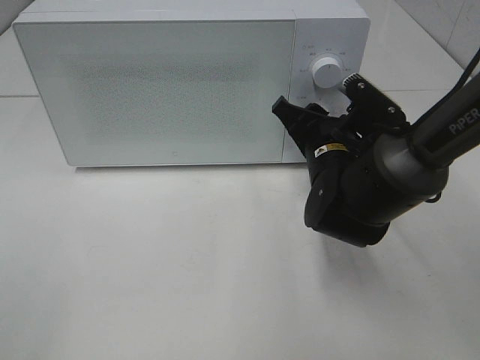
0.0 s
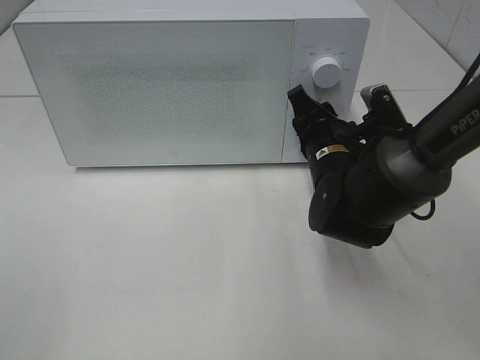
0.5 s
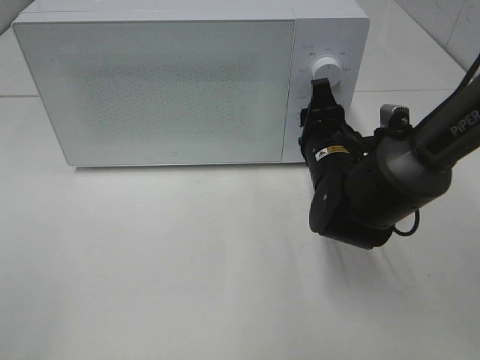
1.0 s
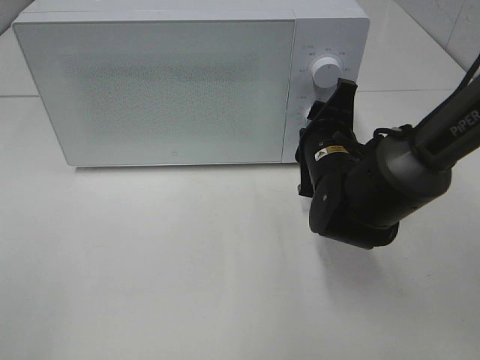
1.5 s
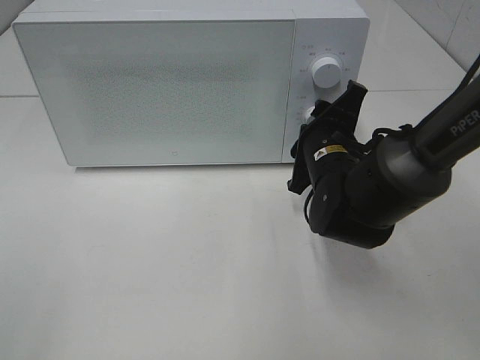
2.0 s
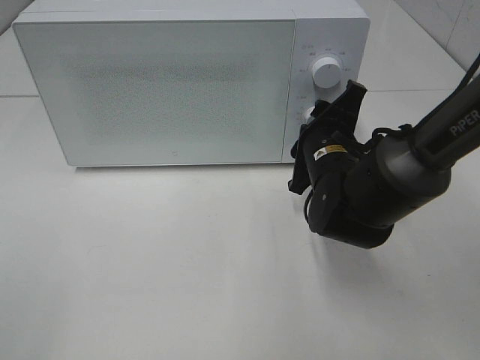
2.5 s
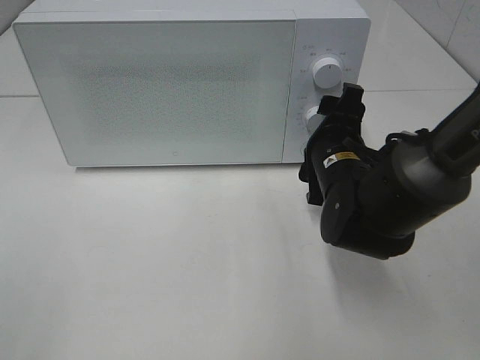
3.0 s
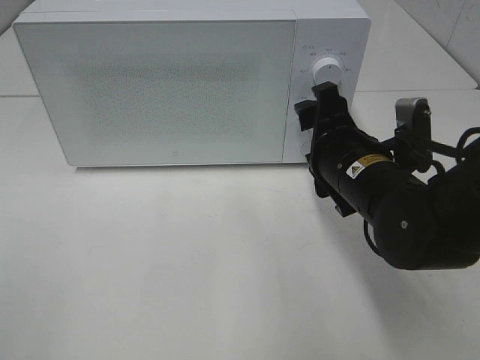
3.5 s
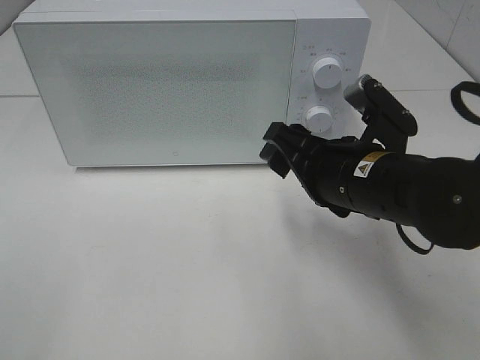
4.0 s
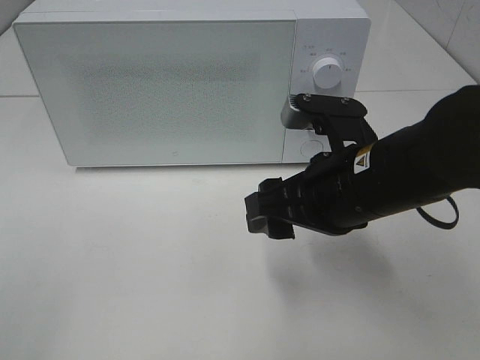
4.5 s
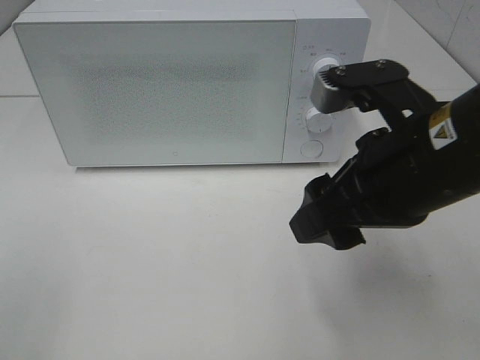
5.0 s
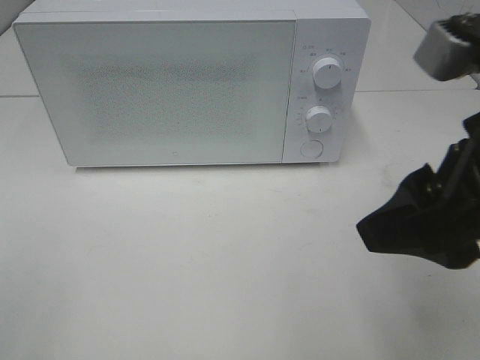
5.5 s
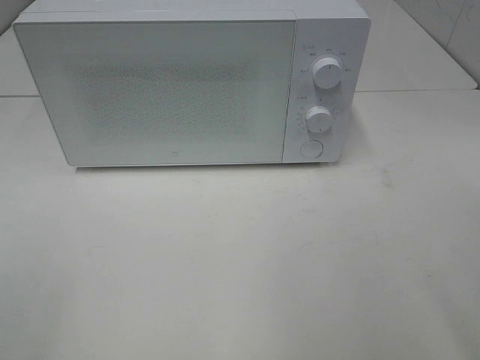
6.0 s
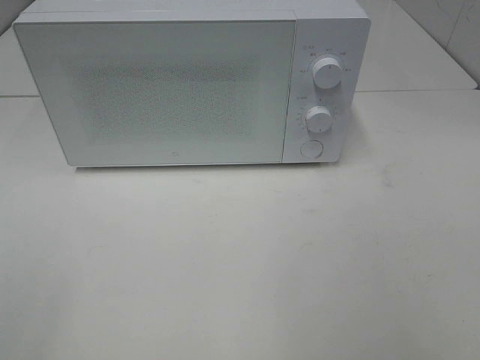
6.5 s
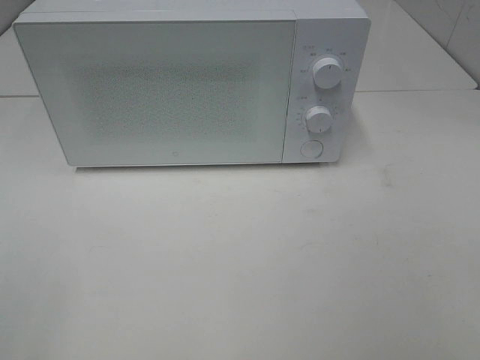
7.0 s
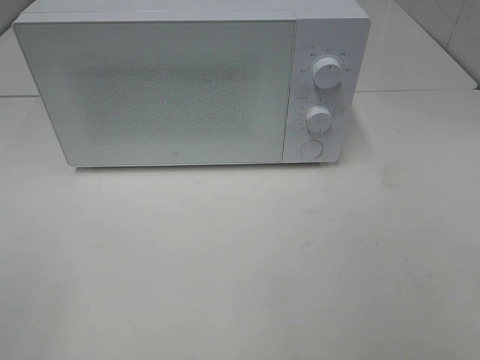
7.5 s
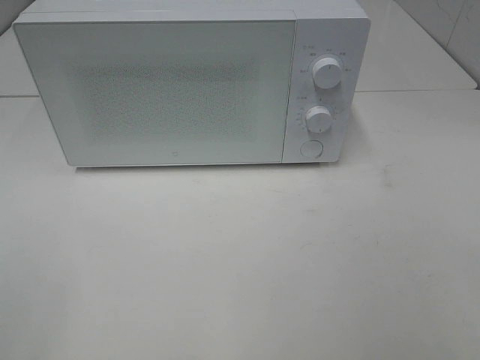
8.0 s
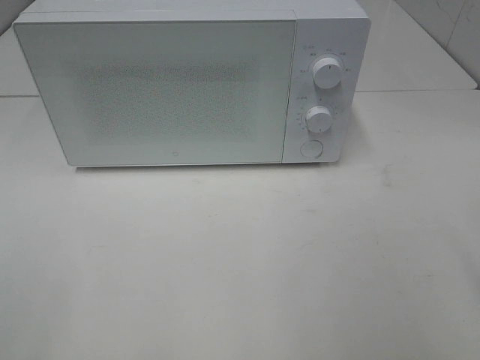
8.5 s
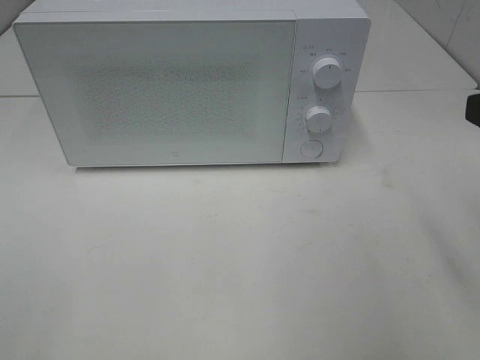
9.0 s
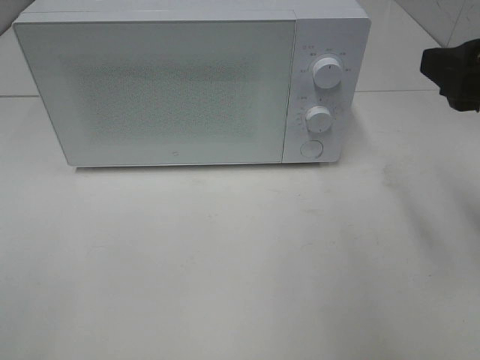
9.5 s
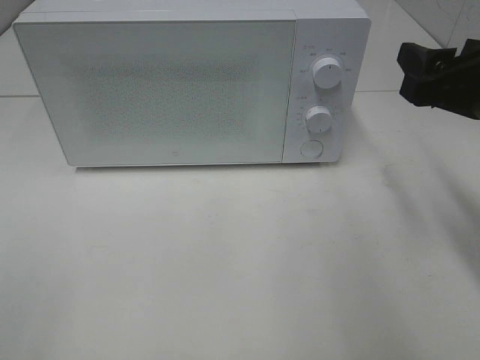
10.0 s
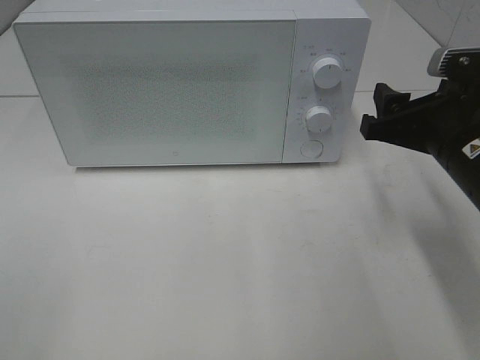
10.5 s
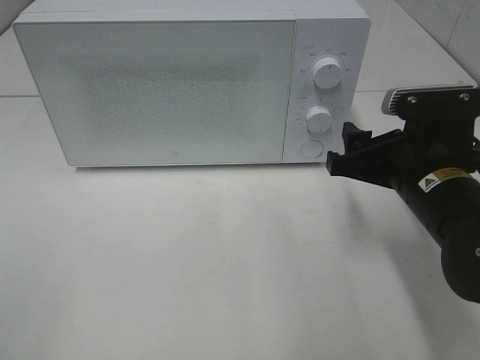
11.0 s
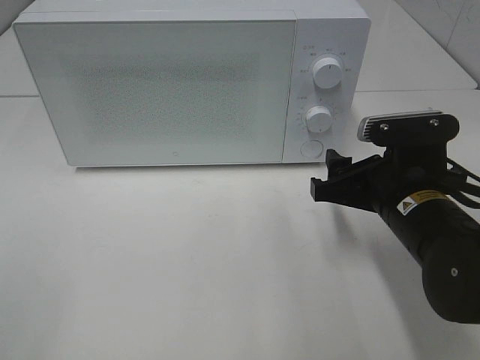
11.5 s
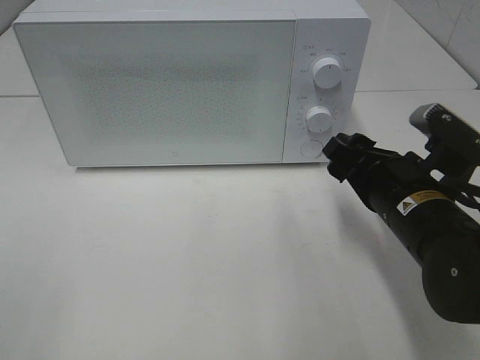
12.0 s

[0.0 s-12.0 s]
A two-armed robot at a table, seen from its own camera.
Task of the whole recording: Heat the burger.
Step, 0.0 to 2.5 s: Right hand: twist timer button.
2.0 to 4.0 s: The right gripper heads backward, covering some 10 cm.
4.0 to 6.0 s: The right gripper goes about 25 cm upward, backward and to the right.
8.0 to 10.0 s: The right gripper moves forward, roughly 25 cm.
10.0 to 12.0 s: The right gripper is displaced downward and to the left by roughly 10 cm.

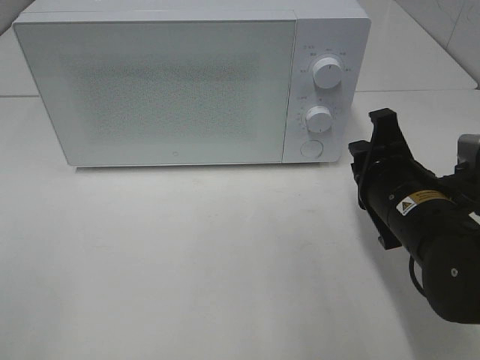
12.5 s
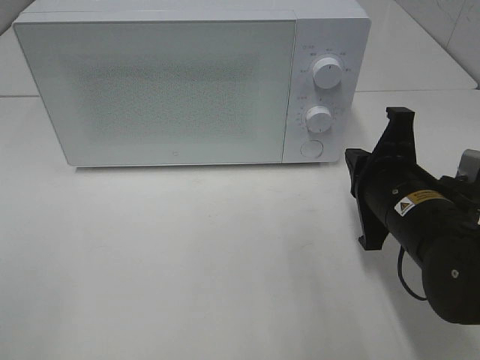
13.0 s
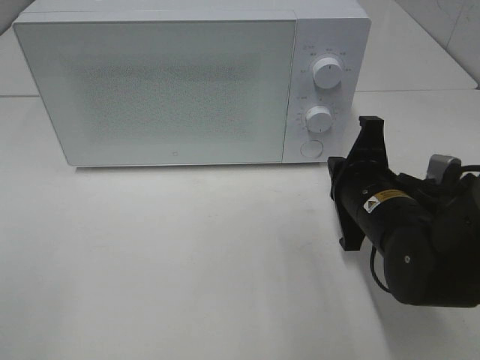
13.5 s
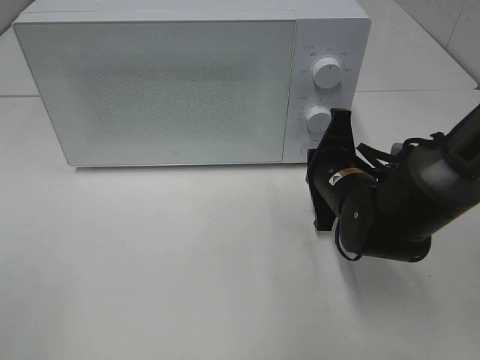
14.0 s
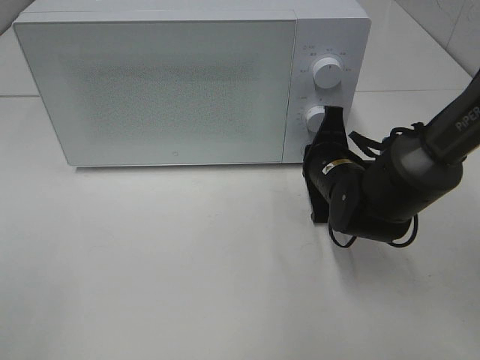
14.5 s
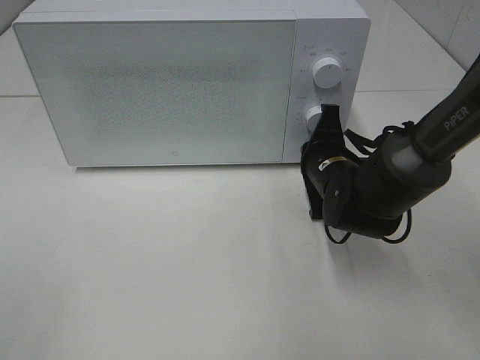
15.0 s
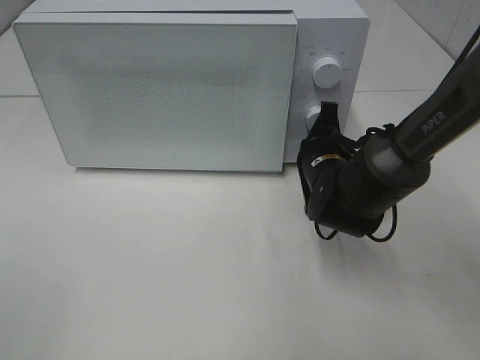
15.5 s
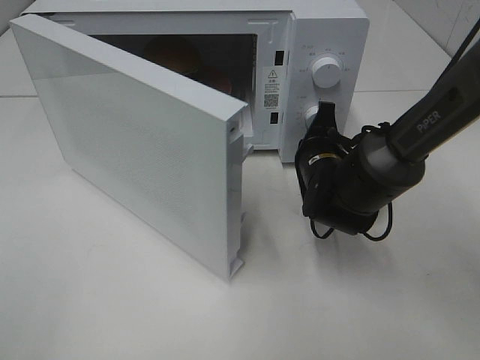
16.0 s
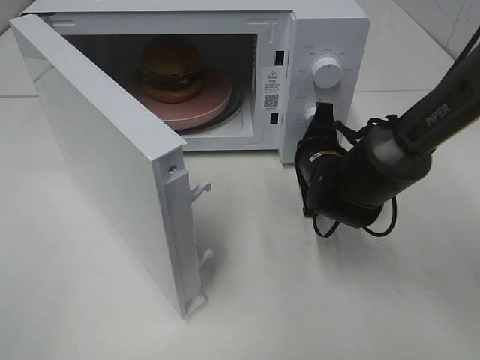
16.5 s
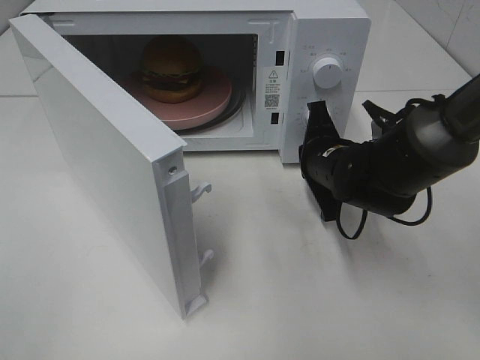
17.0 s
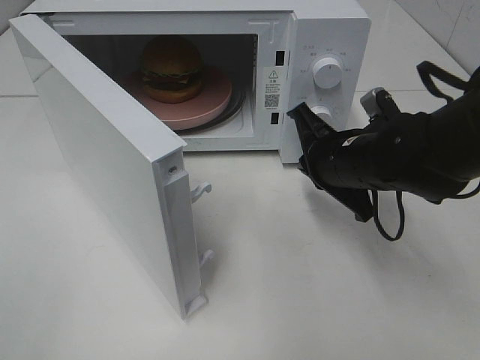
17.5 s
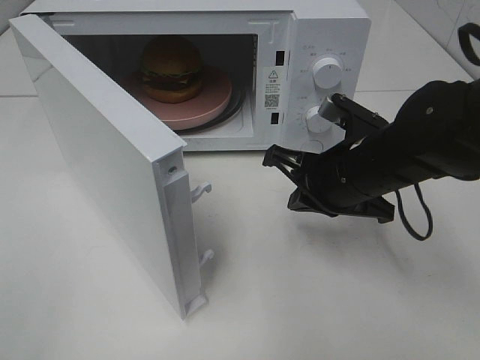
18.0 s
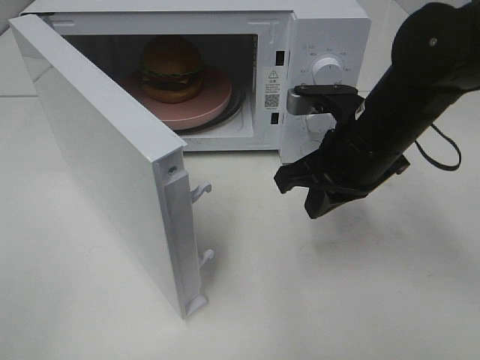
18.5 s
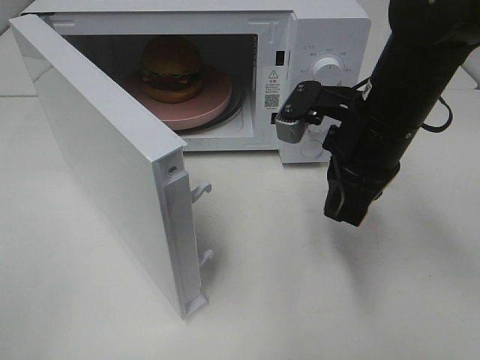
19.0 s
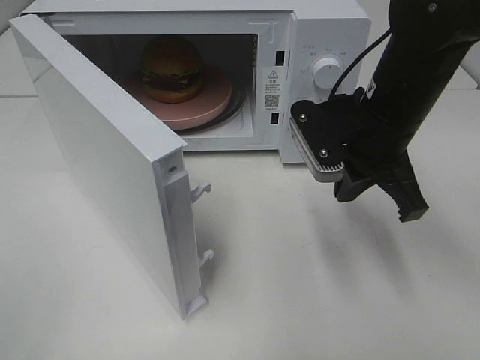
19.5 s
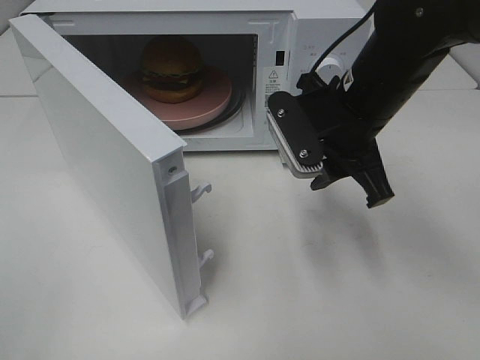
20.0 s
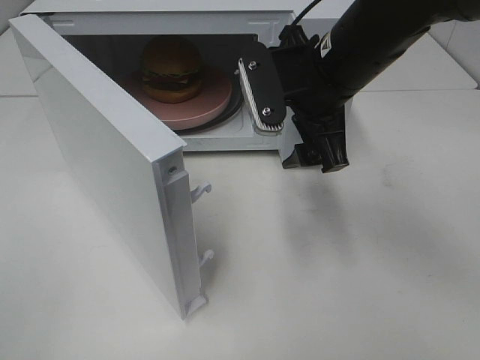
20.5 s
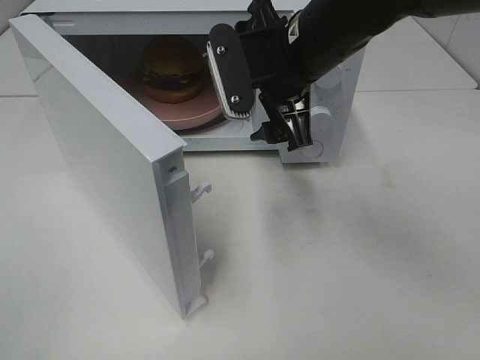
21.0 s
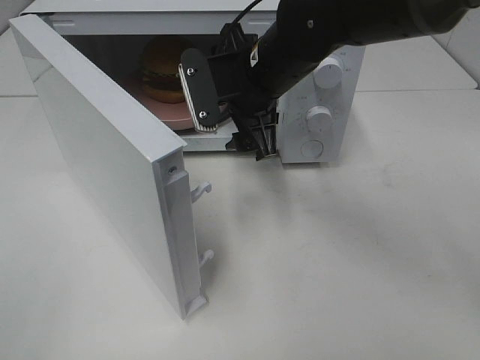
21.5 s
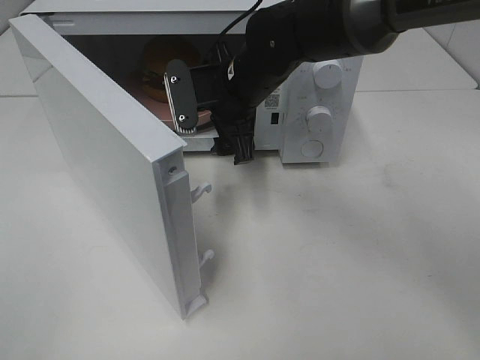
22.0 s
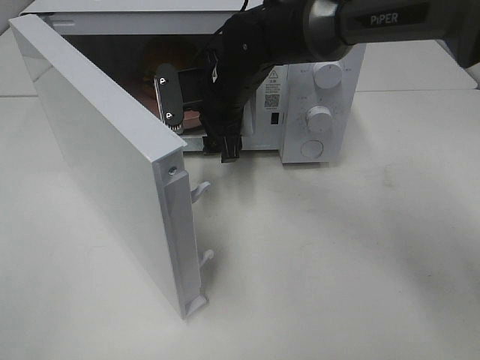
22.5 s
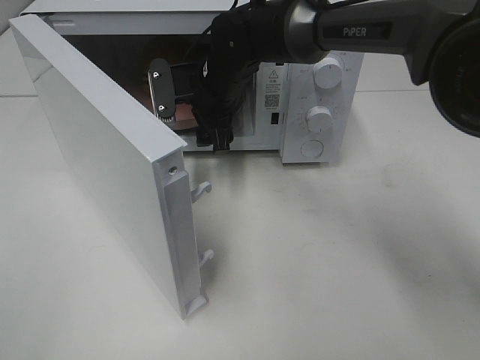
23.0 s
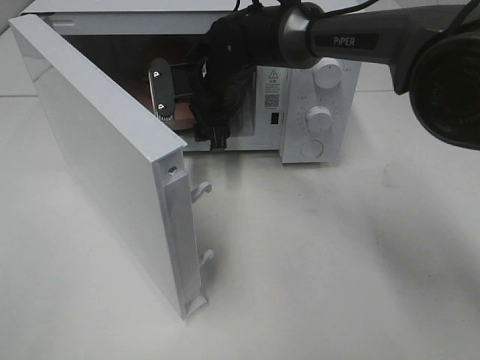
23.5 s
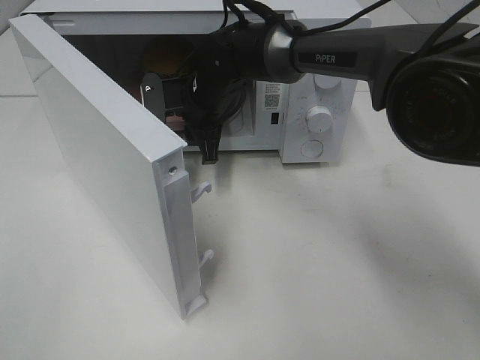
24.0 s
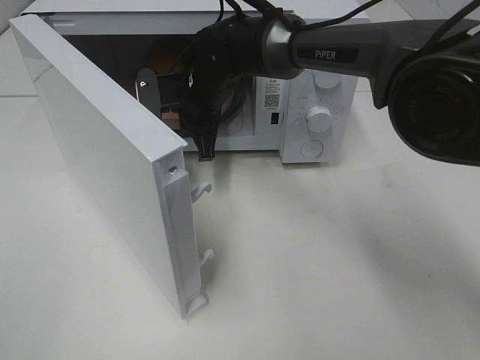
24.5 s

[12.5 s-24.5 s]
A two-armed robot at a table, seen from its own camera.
Task of the whole recording: Heat the burger.
Step, 12.5 to 17.0 s: Right hand: press the switch.
12.5 to 14.5 s: The right gripper travels forward and downward by roughly 10 cm.
16.5 to 18.5 s: The right gripper moves upward and backward, some 15 cm.
18.5 to 20.5 s: The right gripper goes about 5 cm upward, and opens.
20.5 to 22.5 s: The right gripper is displaced to the left, forward and downward by about 15 cm.
22.5 to 24.5 s: The right gripper closes its fingers.

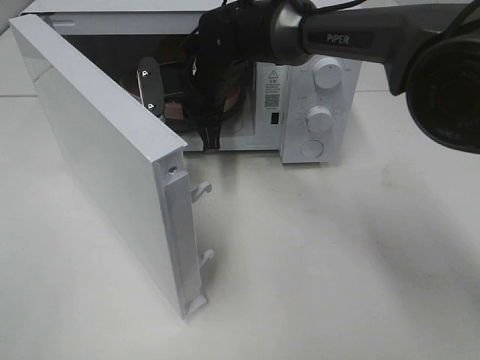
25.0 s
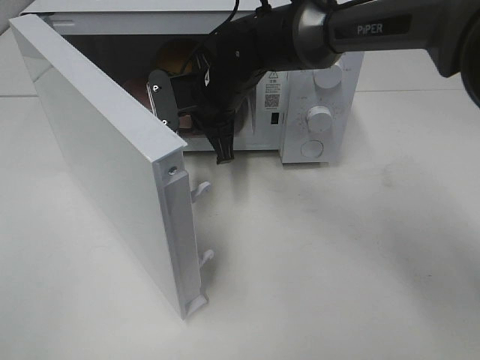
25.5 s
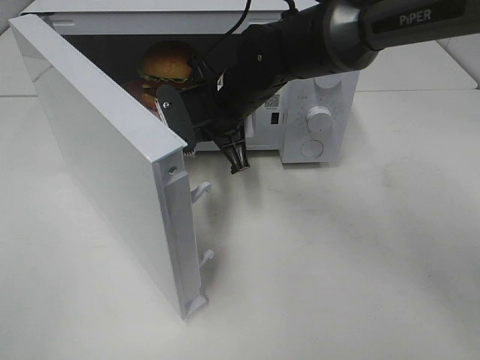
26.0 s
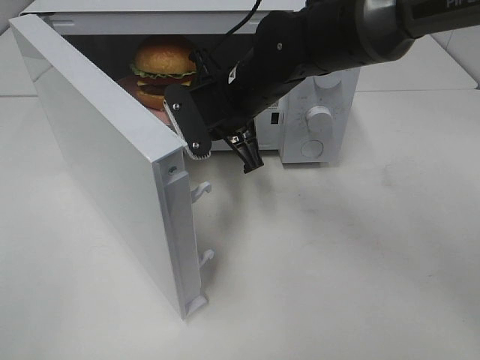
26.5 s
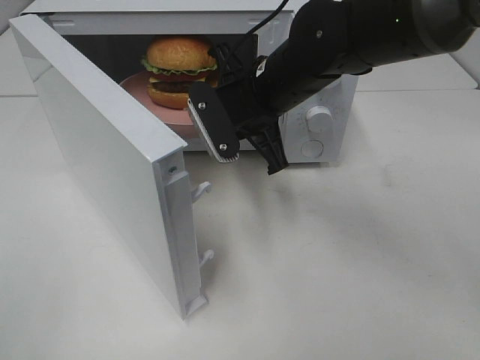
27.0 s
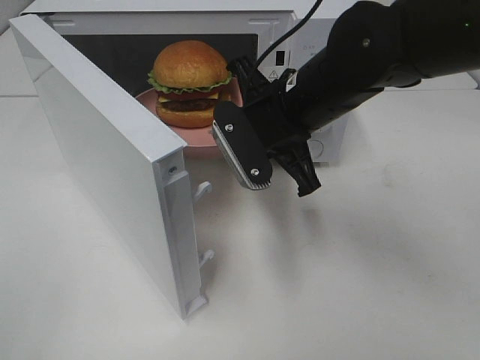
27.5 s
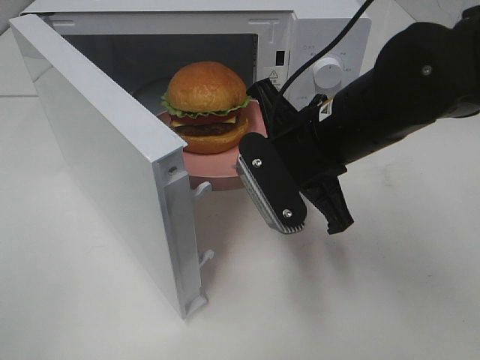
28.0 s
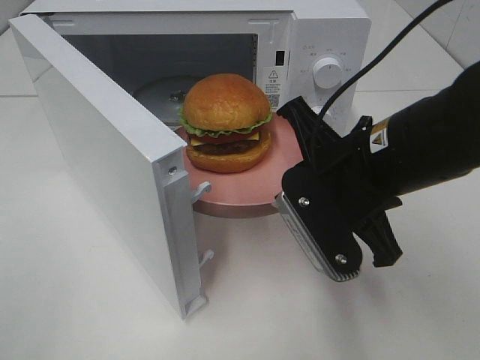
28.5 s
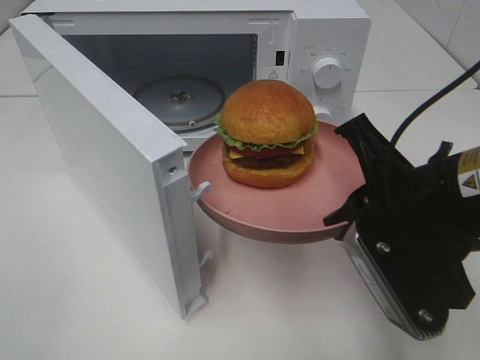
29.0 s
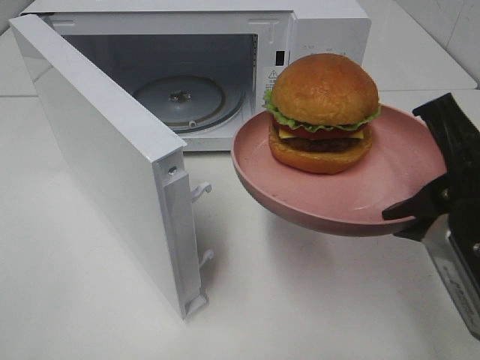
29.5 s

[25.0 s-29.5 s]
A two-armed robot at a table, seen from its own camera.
Task of the whole recording: Heat the burger.
25.0 to 27.0 s: The right gripper shifts roughly 10 cm backward and to the right.
27.0 to 29.5 s: The right gripper travels backward and to the right by roughly 25 cm.
